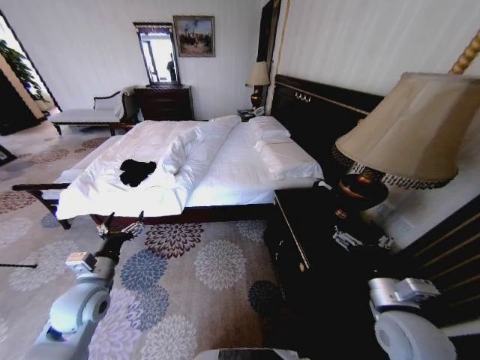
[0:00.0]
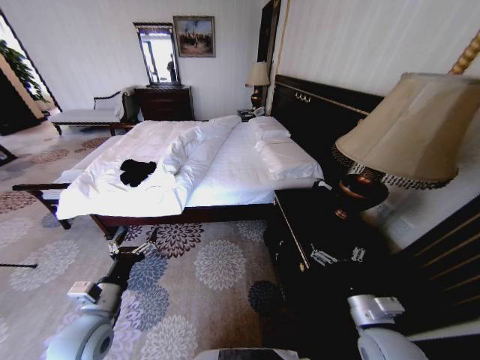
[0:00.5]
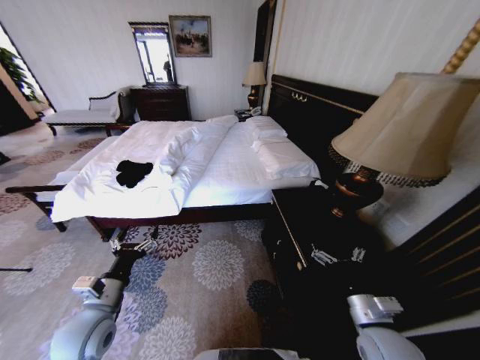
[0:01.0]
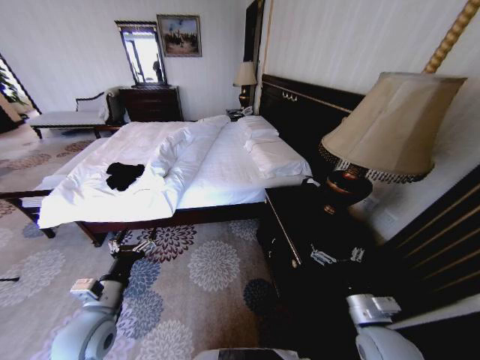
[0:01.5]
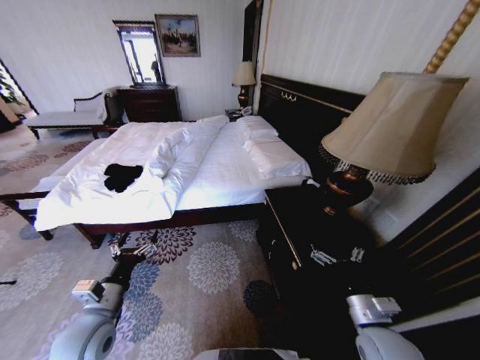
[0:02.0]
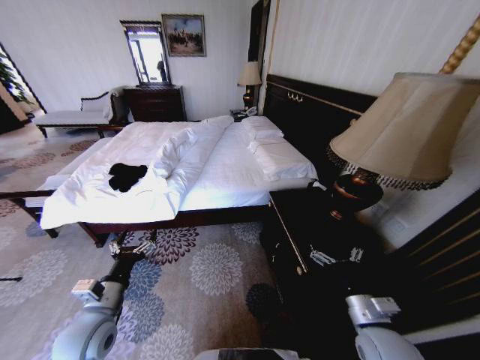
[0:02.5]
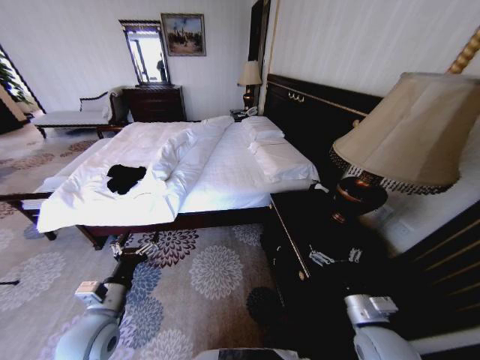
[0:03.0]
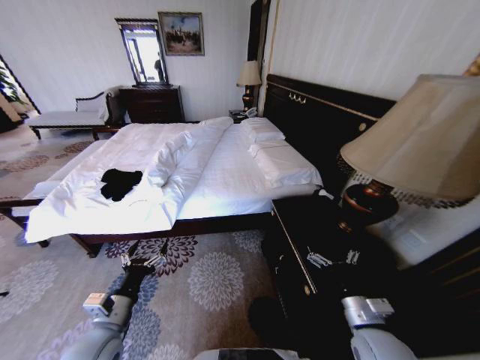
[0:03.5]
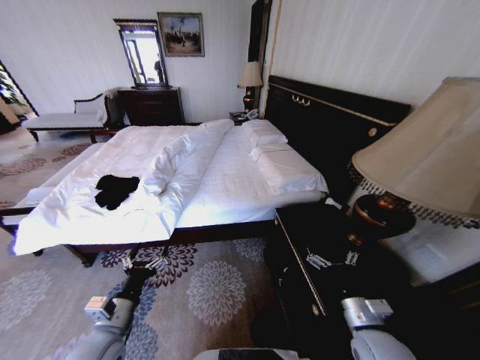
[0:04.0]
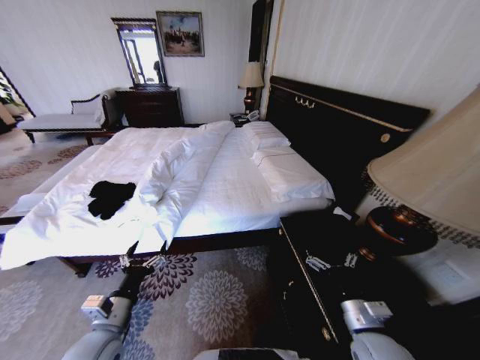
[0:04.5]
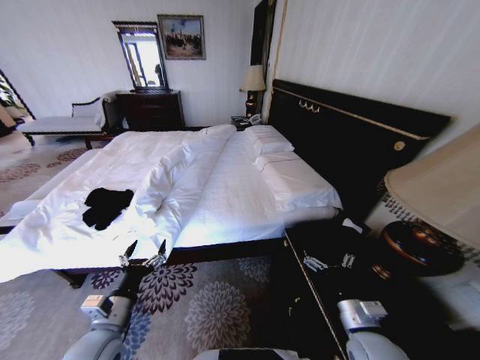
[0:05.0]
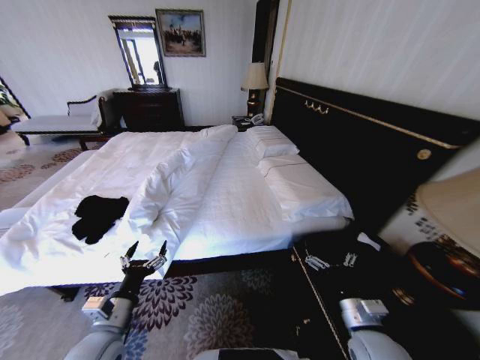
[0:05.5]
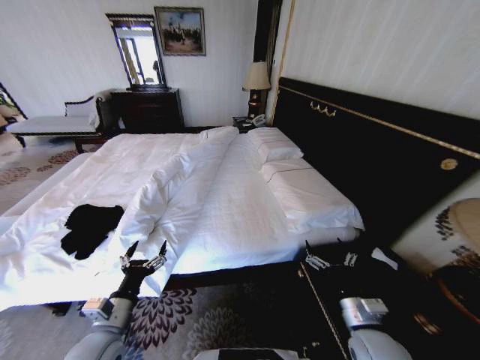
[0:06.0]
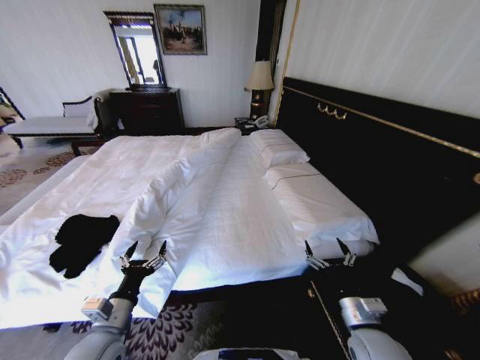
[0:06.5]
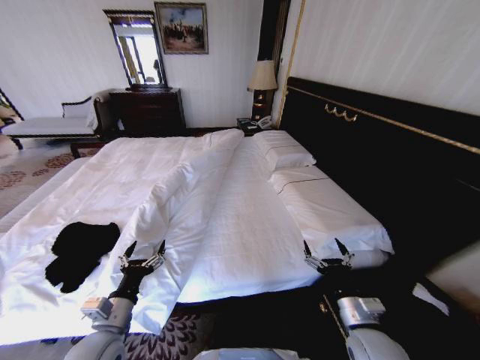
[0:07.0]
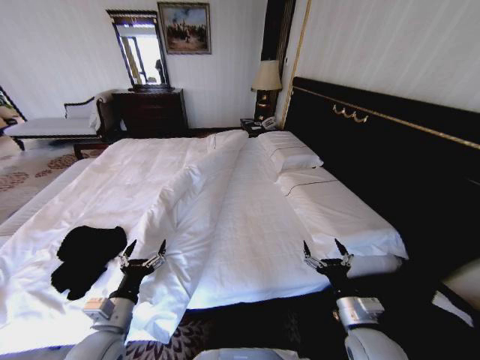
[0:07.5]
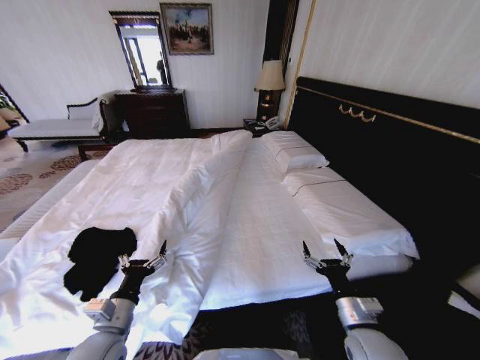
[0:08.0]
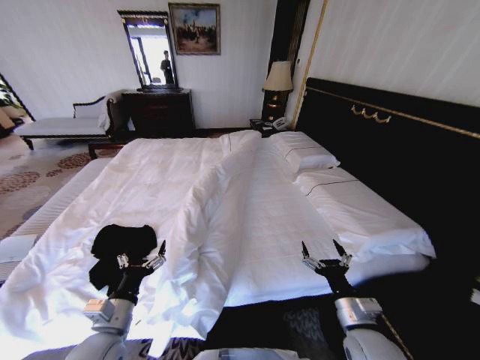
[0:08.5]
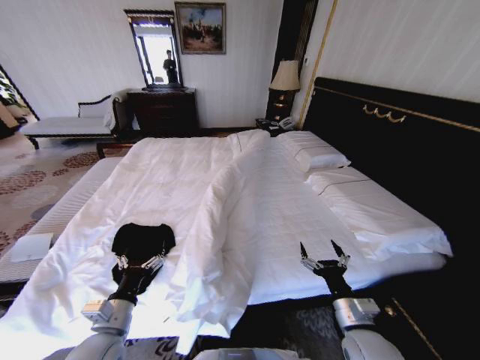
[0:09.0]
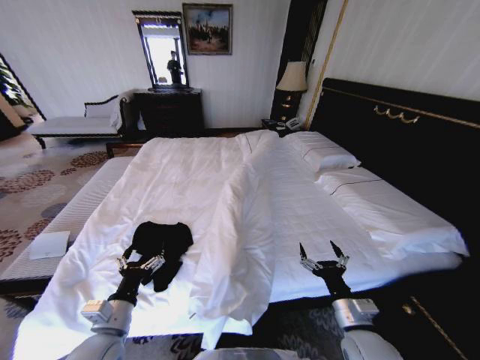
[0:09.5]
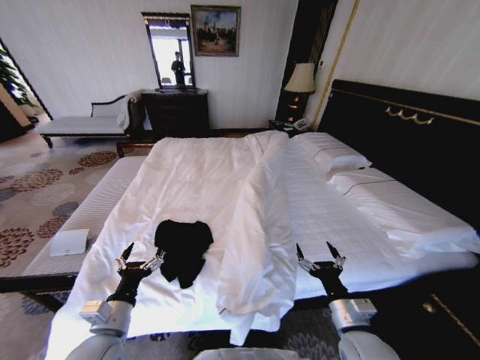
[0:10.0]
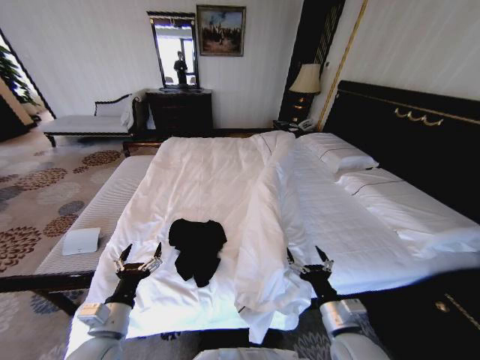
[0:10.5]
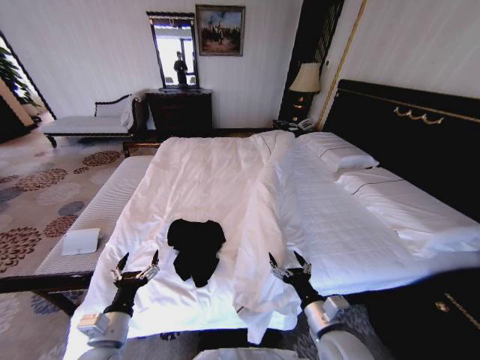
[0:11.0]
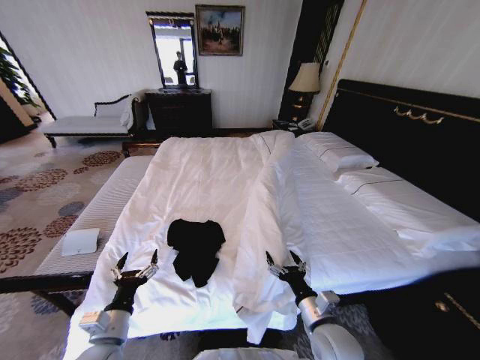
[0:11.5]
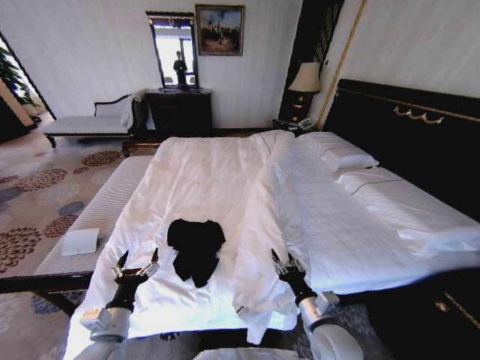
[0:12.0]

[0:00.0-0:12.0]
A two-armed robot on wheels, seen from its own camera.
Task of the whole recording: Fold the clothes on the bed.
0:10.0 to 0:12.0: The right gripper changes place by some 5 cm, and closes its fingers.

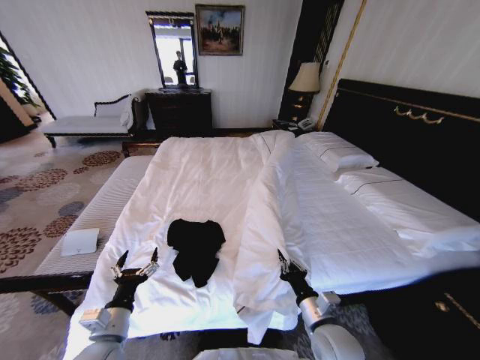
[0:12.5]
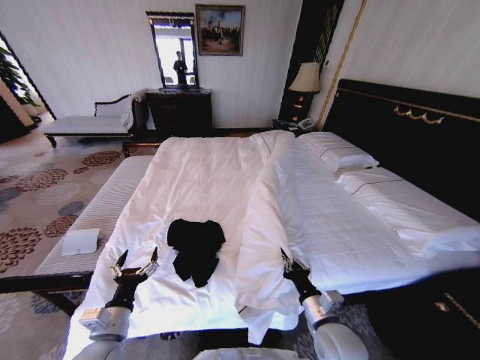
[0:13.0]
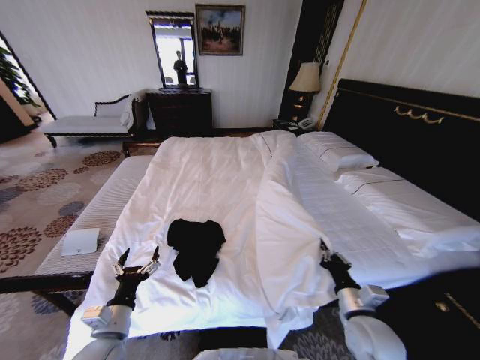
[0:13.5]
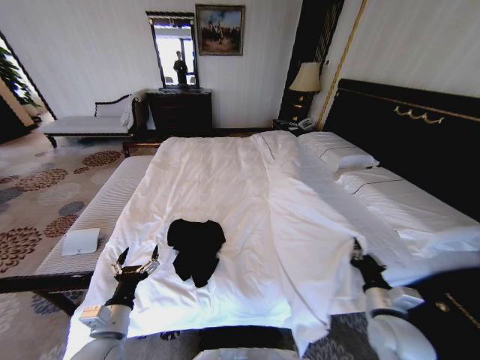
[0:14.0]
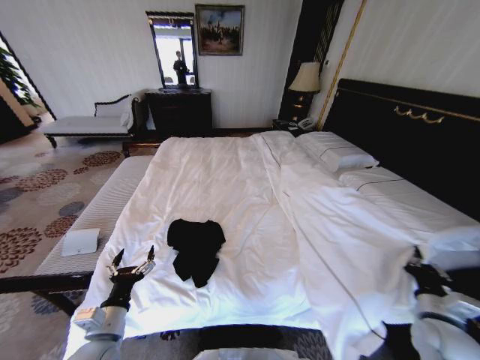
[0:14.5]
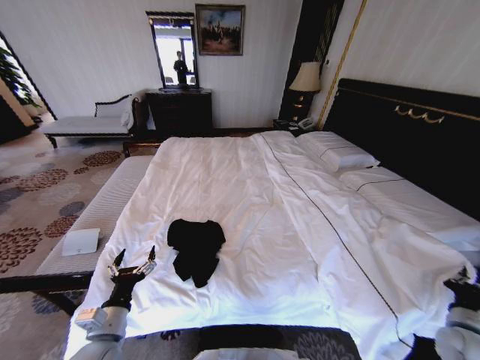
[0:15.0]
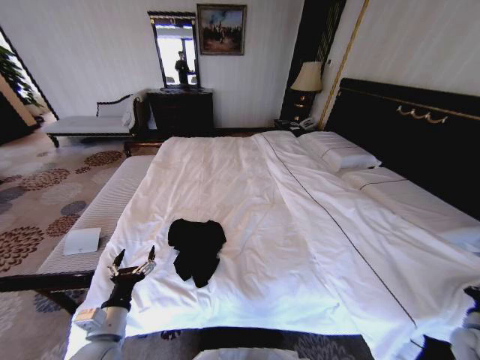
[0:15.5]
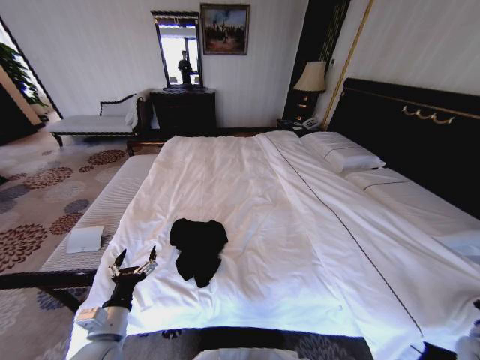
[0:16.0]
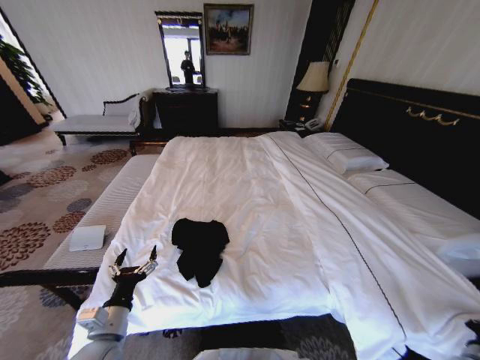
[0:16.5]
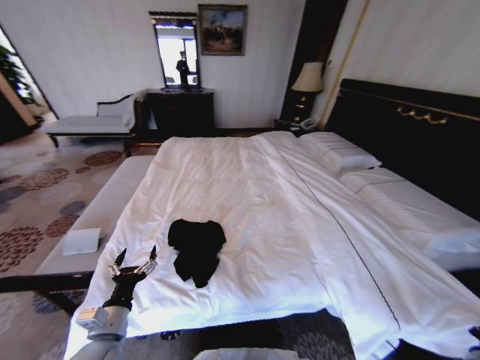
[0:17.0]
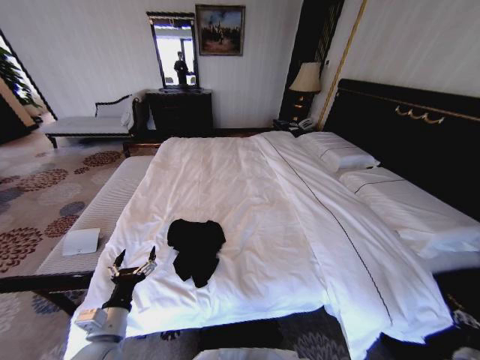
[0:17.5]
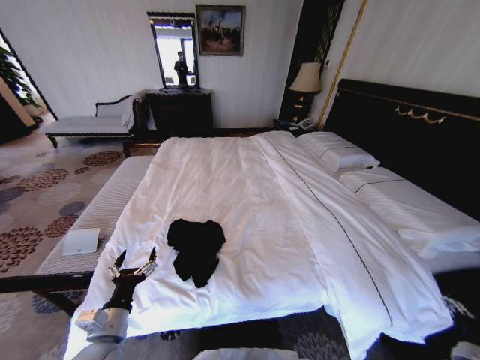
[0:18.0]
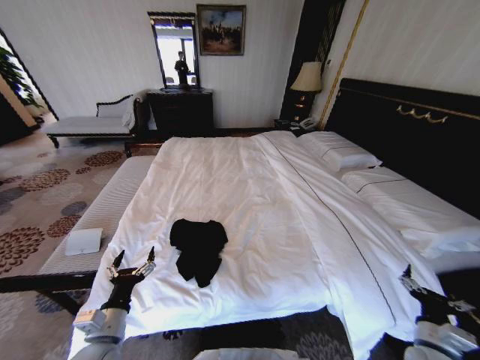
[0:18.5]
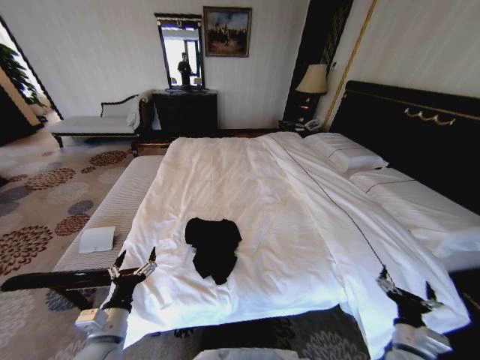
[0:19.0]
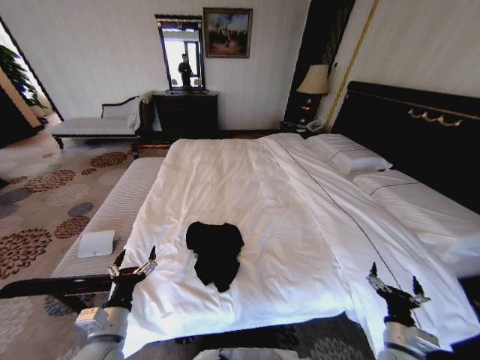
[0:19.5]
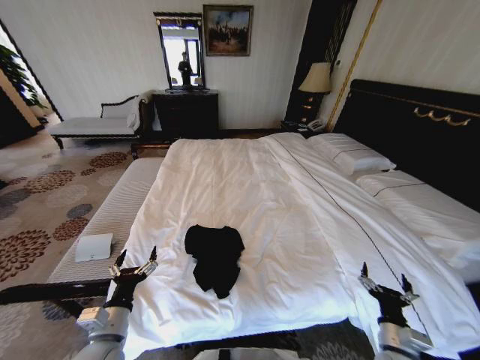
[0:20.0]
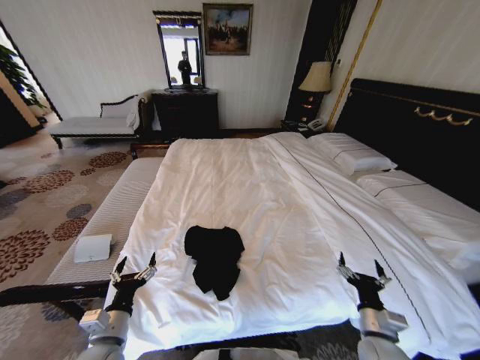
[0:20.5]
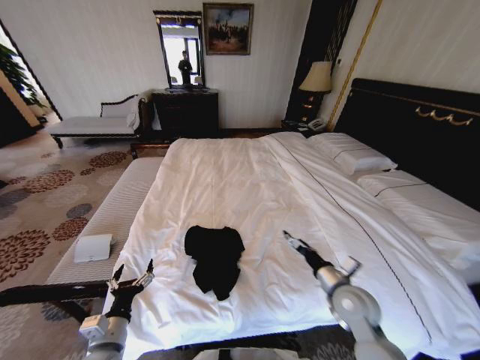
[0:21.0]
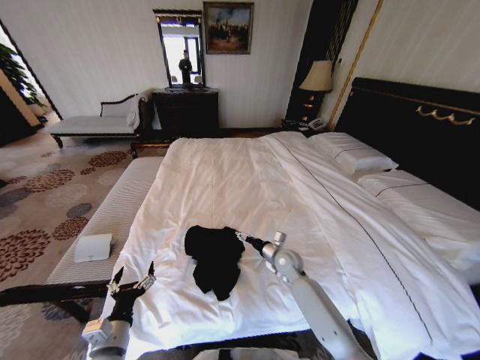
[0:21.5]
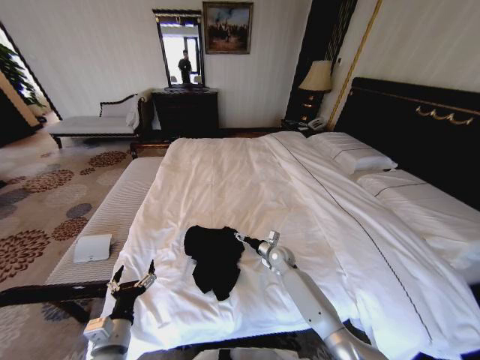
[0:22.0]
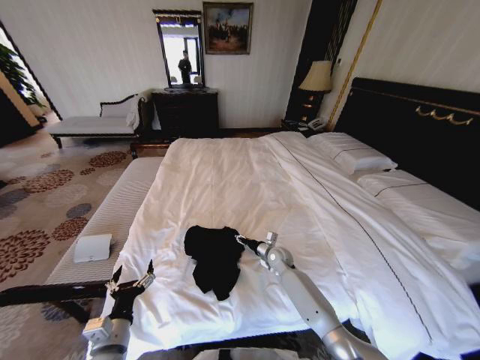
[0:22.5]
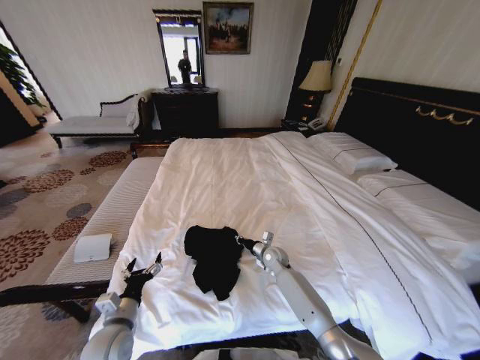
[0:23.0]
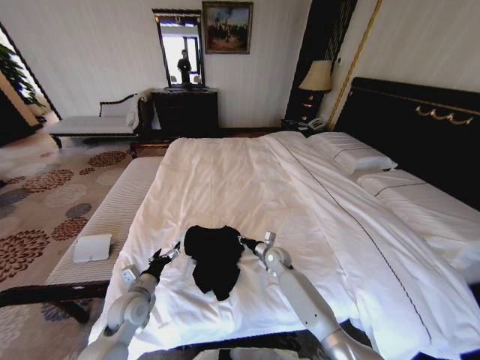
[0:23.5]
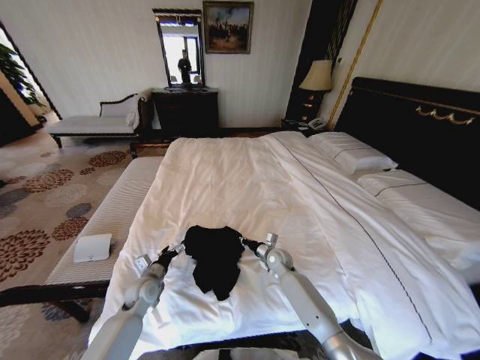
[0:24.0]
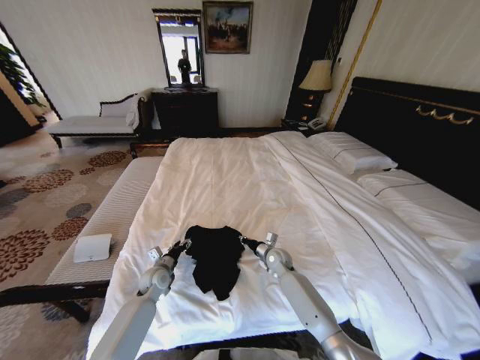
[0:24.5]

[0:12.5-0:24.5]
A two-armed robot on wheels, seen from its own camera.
Task of the whole recording: Fold the clothes on the bed.
0:12.5 to 0:14.5: The right gripper goes roughly 25 cm to the right.
0:14.5 to 0:16.5: The right gripper moves to the right, downward and backward, about 20 cm.
0:16.5 to 0:18.5: The right gripper goes about 15 cm to the left, and opens up.
0:18.5 to 0:20.5: The right gripper goes approximately 10 cm to the left.
0:20.5 to 0:22.5: The right gripper shifts roughly 35 cm forward and to the left, and closes.
0:22.5 to 0:24.5: The right gripper closes its fingers. Meanwhile the left gripper travels forward by some 25 cm.

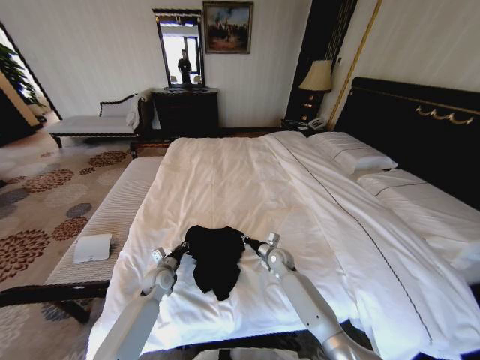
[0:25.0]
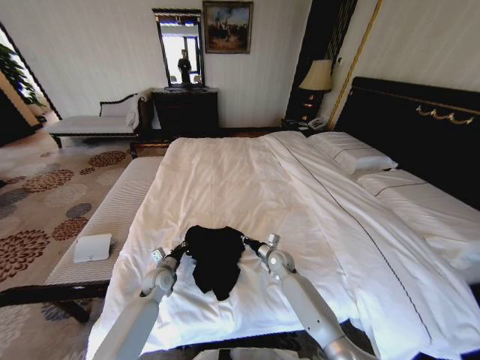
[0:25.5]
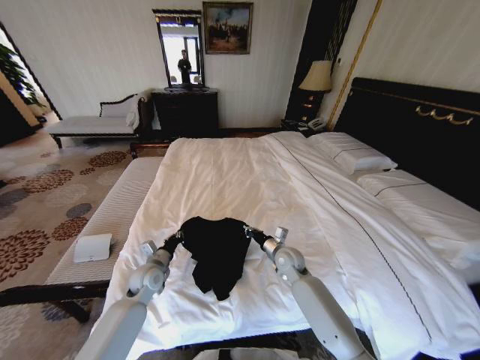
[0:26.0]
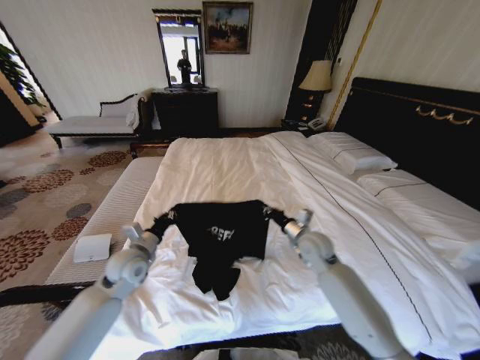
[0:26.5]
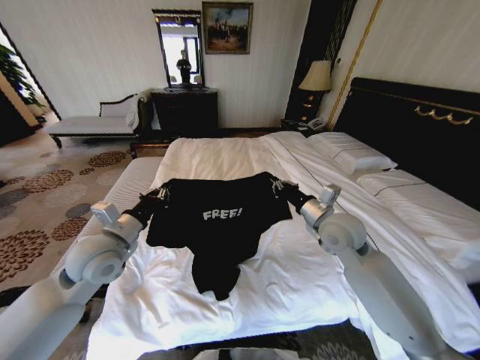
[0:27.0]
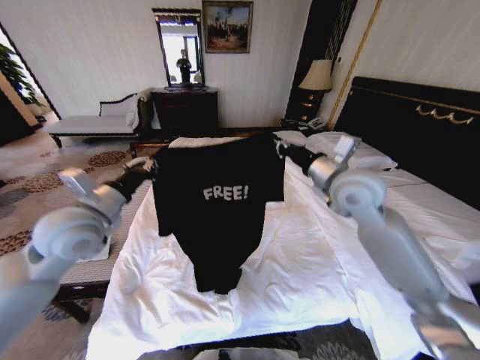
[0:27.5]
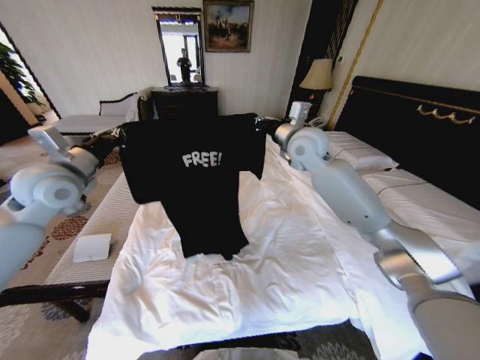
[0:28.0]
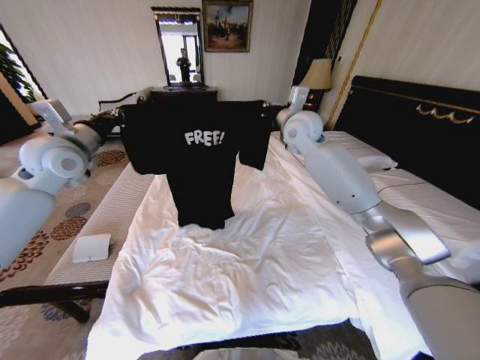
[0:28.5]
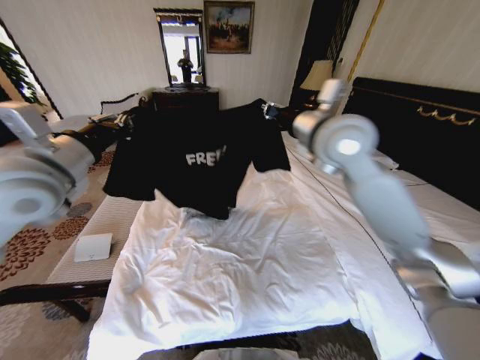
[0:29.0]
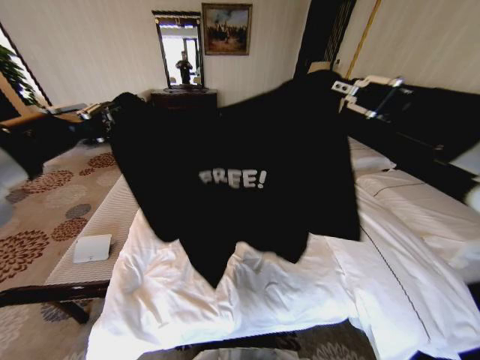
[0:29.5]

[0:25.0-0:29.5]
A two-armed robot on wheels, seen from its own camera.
Task of the whole recording: Fold the clothes on the bed.
0:25.0 to 0:27.0: The grippers both shift upward by about 25 cm.
0:27.0 to 0:29.5: Both grippers move upward and backward, some 30 cm.
